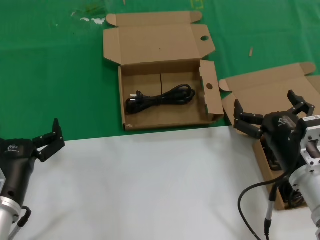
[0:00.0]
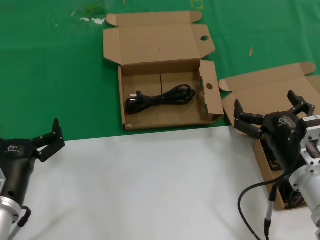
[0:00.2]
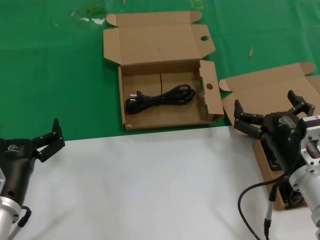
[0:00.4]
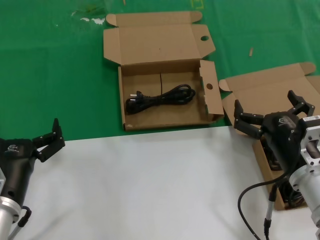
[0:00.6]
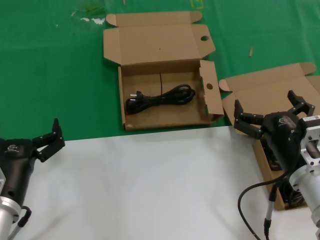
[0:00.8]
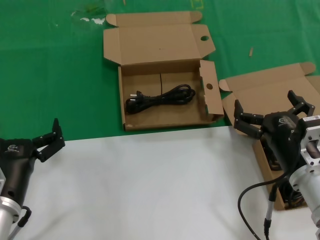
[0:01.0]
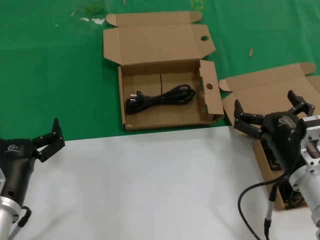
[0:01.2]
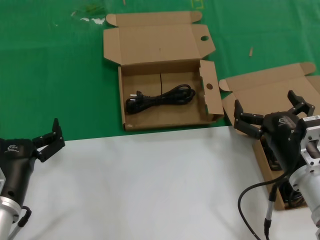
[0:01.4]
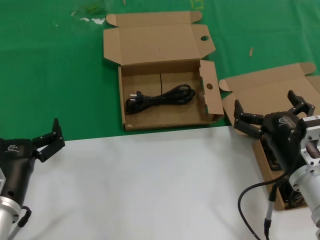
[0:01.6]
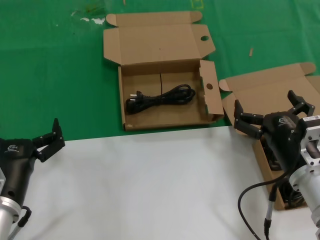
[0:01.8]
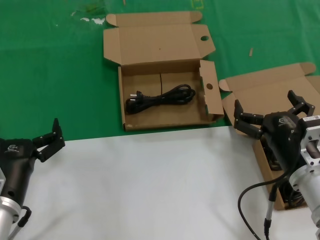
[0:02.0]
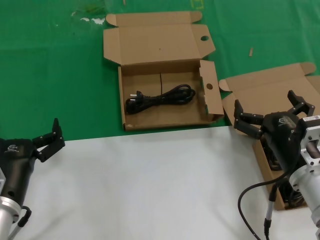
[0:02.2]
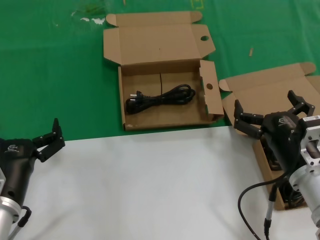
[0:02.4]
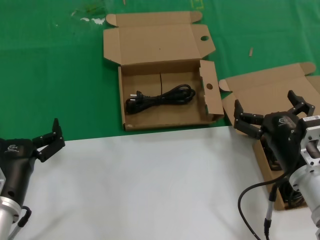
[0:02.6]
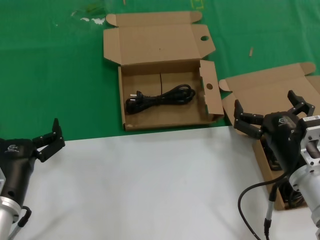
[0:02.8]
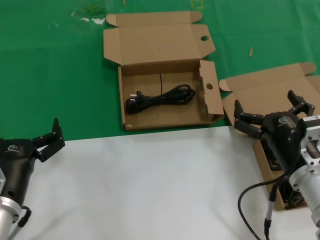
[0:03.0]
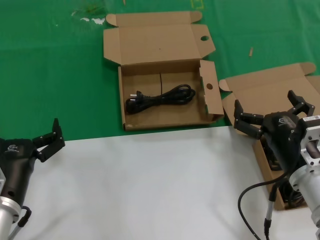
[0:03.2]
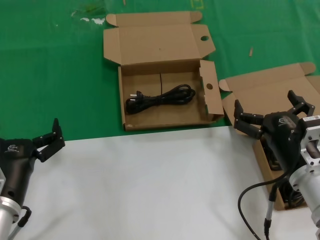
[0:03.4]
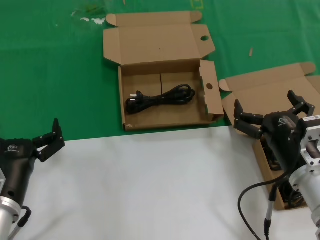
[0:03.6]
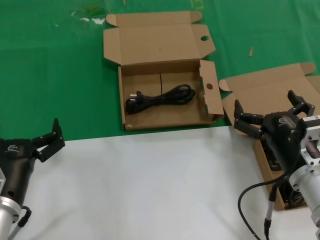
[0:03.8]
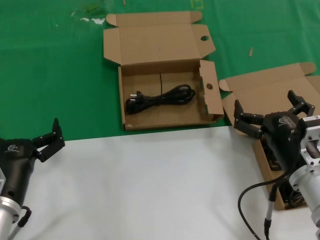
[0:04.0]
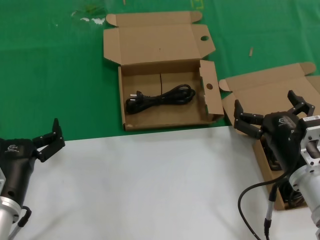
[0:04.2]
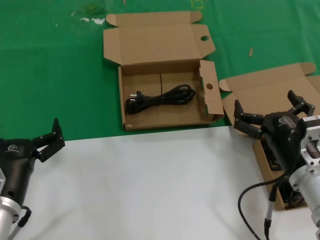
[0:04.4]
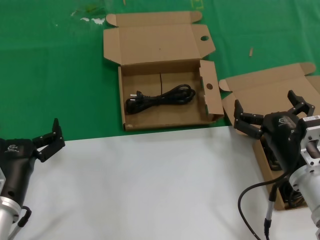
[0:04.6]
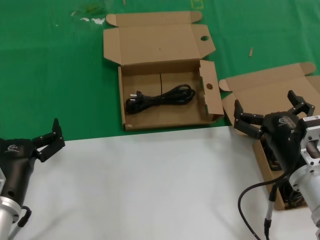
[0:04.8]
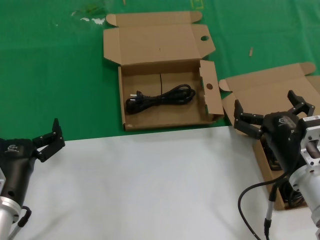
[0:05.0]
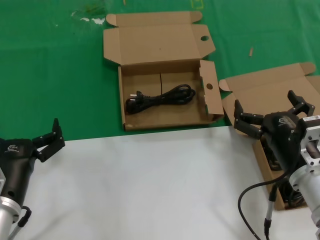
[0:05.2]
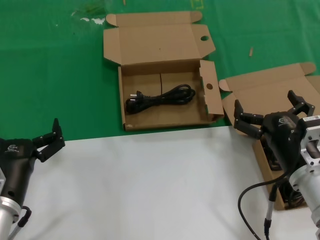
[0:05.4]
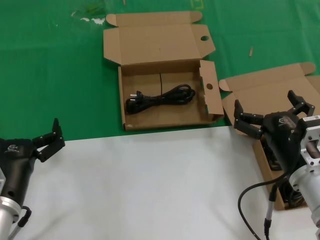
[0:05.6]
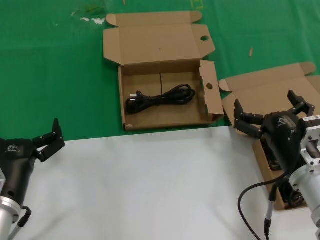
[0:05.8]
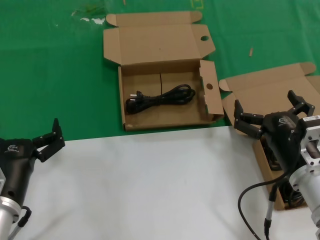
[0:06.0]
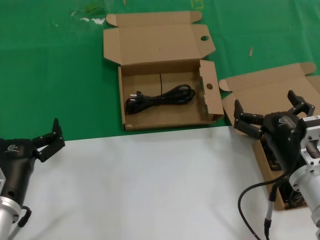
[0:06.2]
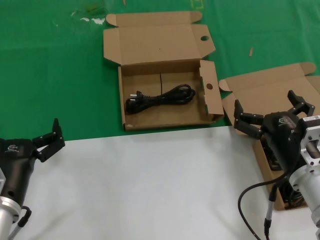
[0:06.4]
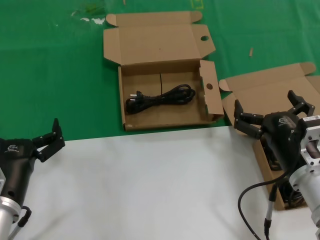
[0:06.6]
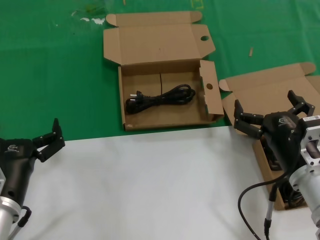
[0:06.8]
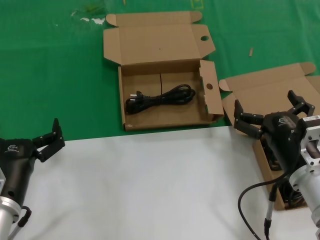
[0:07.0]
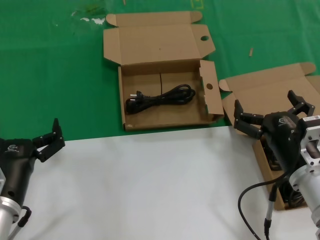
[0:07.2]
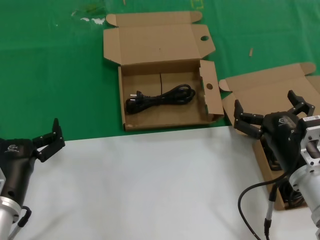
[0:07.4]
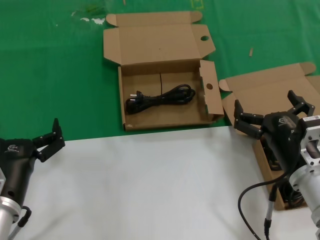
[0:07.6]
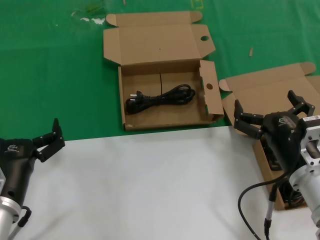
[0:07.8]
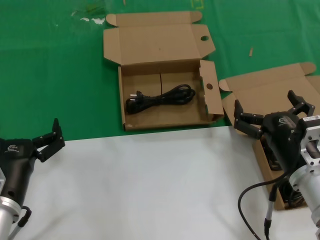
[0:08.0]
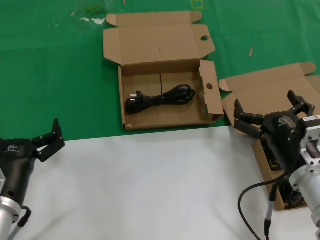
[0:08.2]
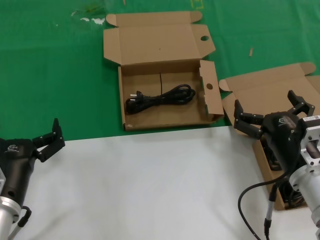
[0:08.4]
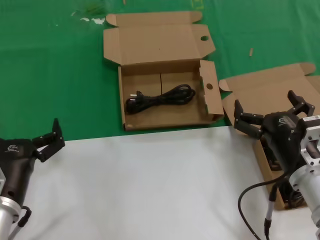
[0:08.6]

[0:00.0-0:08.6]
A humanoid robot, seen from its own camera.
Task of the whole recording: take the parts from the box containing them and put them into an empty box.
0:00.0 to 0:08.6: Both hands stay about where they are.

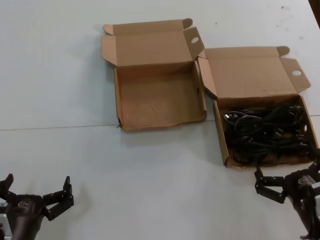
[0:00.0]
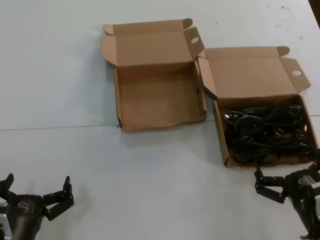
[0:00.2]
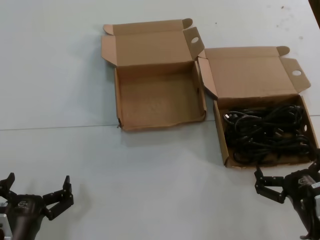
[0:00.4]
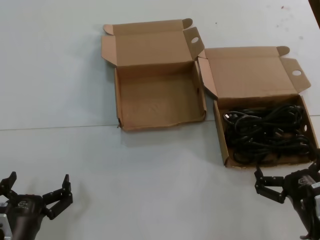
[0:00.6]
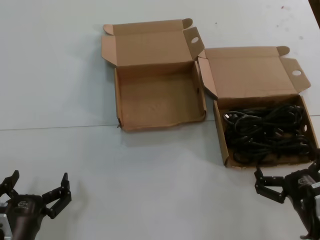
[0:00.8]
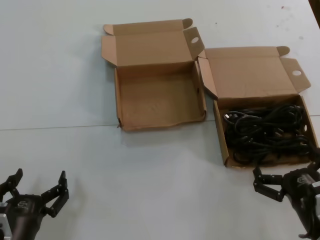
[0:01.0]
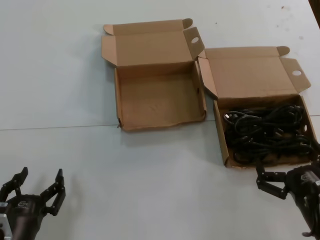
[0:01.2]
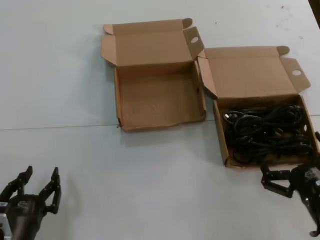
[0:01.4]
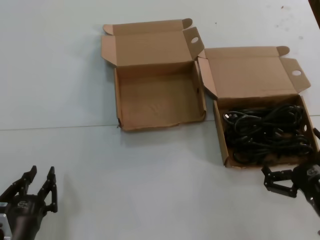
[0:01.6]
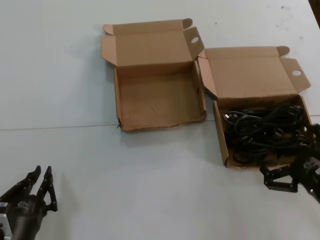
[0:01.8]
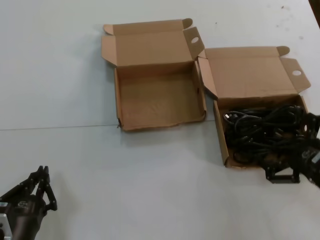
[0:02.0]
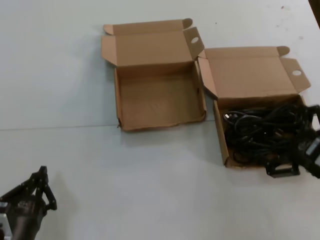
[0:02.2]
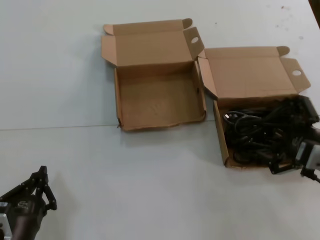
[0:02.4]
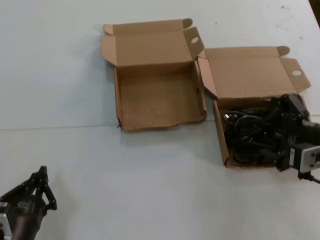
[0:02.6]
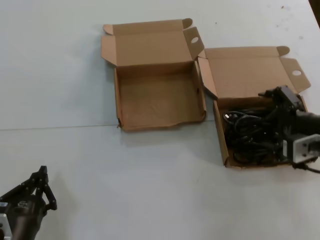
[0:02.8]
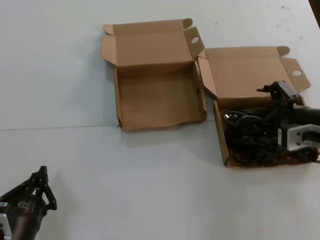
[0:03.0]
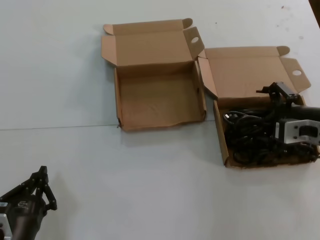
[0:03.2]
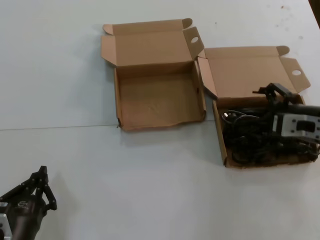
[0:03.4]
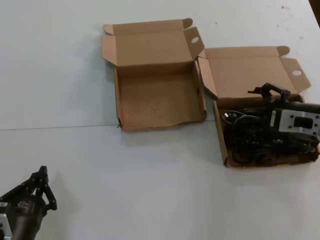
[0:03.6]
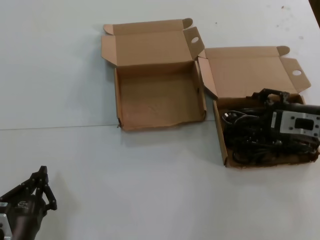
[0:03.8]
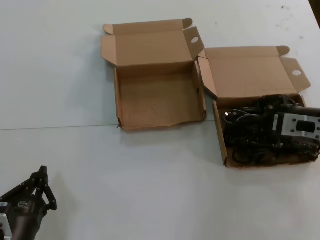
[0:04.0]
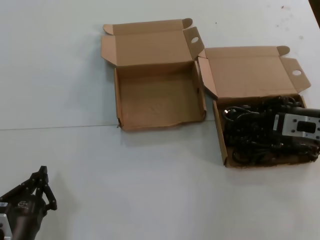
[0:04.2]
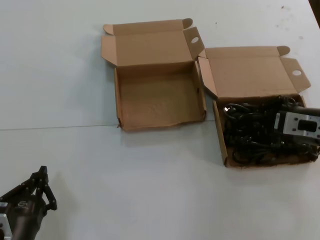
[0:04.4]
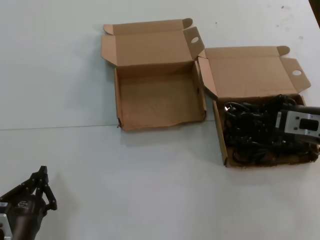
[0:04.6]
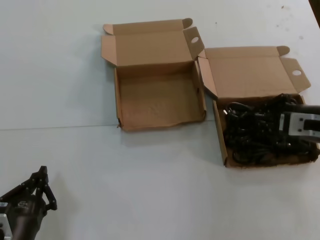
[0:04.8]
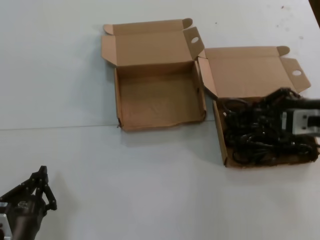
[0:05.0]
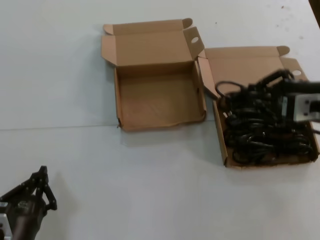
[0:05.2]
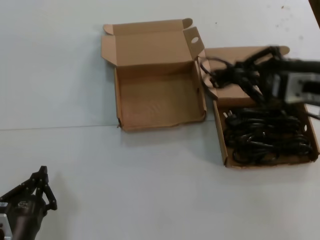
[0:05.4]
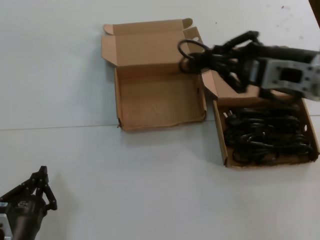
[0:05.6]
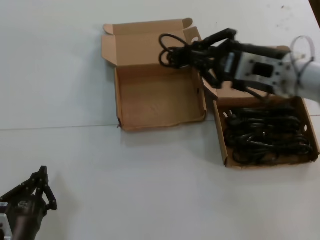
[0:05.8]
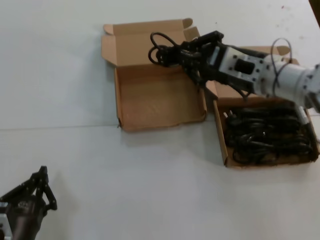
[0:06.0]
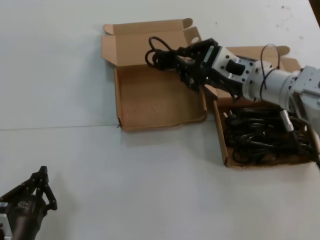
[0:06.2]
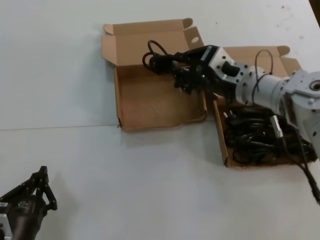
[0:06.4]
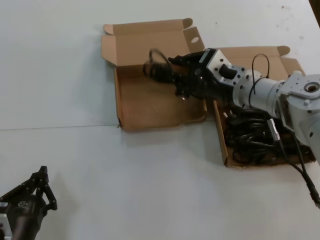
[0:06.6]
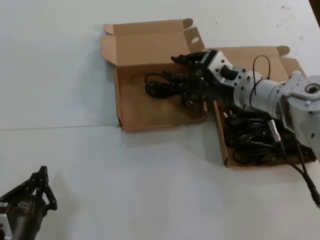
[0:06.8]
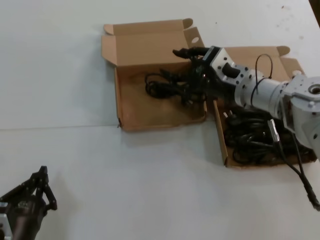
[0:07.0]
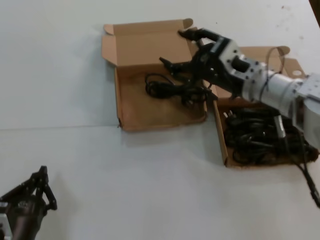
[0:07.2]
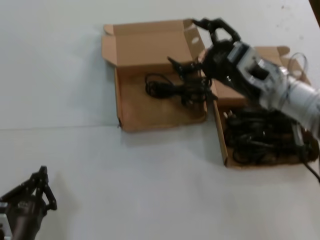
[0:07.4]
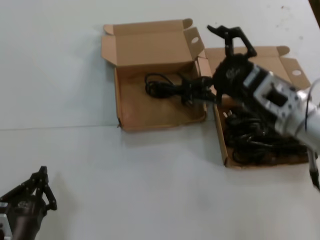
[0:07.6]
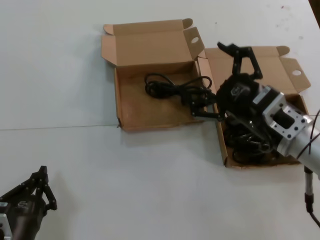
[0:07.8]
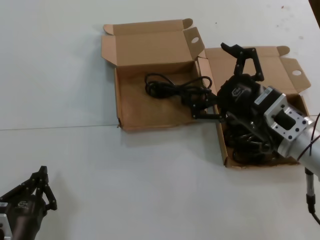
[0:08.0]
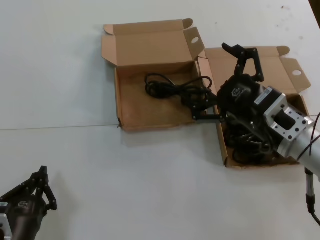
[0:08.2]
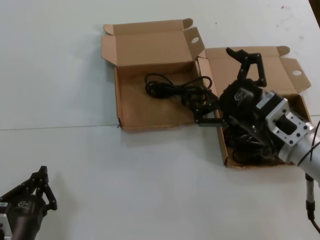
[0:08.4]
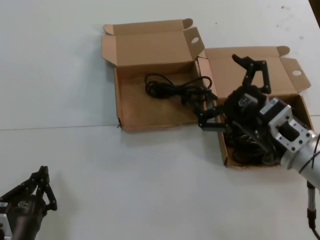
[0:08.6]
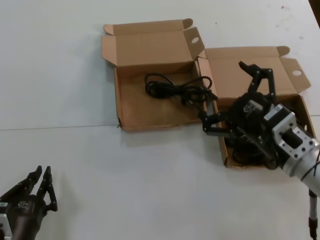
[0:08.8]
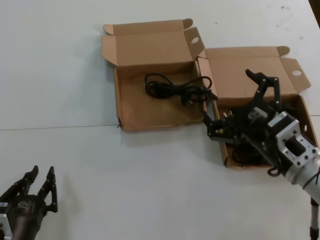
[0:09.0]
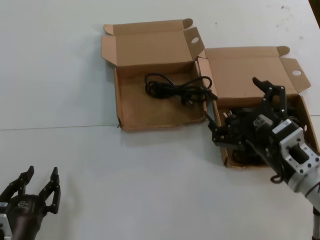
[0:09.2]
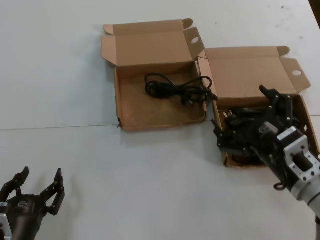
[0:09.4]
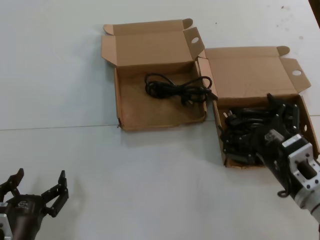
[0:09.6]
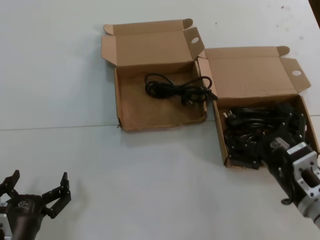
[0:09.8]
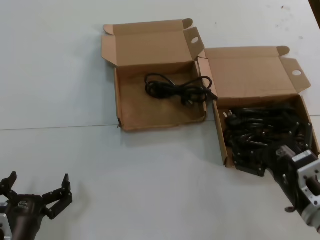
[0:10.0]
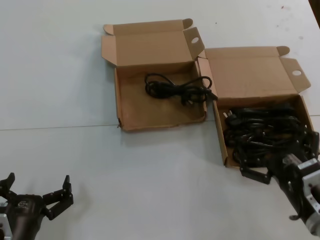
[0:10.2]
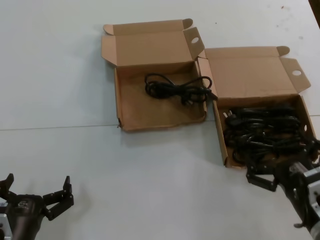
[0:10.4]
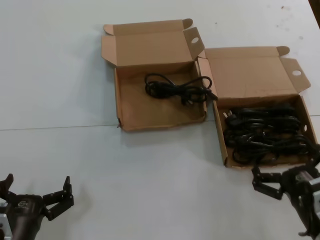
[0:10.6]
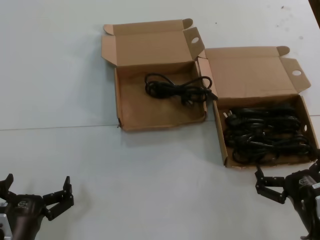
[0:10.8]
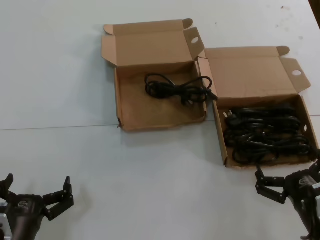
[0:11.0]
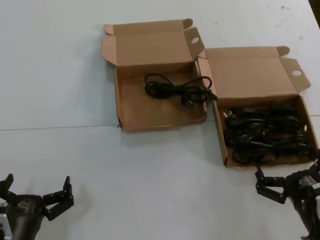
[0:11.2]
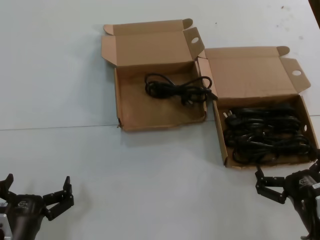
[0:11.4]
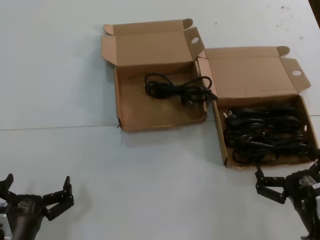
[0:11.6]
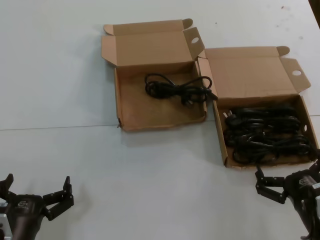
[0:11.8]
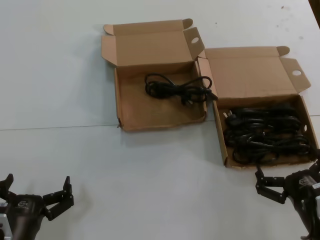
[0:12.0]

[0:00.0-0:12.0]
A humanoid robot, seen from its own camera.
Task of the whole recording: take the parts from the box containing them and put them into an empty box.
Step, 0:00.0 to 0:04.2: Grasp the data cable.
Step, 0:04.6 to 0:06.6: Place the data cable in the another box.
0:00.0 to 0:01.6: There are only small adjustments of the hands.
0:01.6 to 0:03.0: The right hand is displaced forward and upward by approximately 20 cm.
0:03.0 to 0:04.4: The hands move only a little.
0:04.4 to 0:06.0: The right hand is displaced to the left and upward by roughly 15 cm.
0:06.0 to 0:07.6: The right hand shifts about 10 cm backward and downward.
0:07.6 to 0:09.0: The right hand moves downward and backward, about 10 cm.
0:09.0 to 0:10.4: The right hand shifts some 10 cm downward and backward.
0:10.4 to 0:12.0: The hands move only a little.

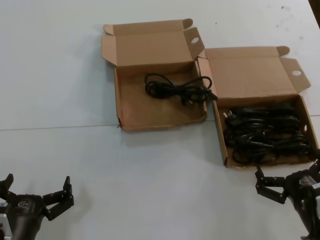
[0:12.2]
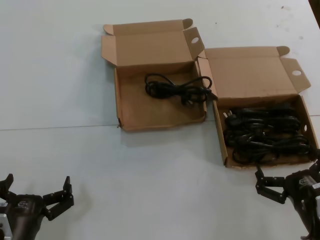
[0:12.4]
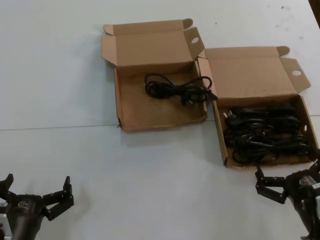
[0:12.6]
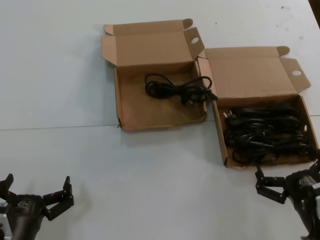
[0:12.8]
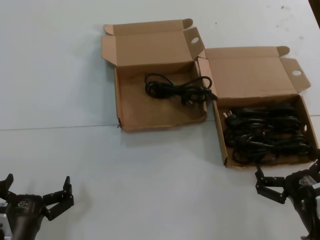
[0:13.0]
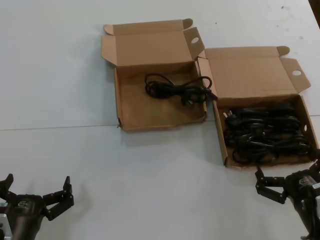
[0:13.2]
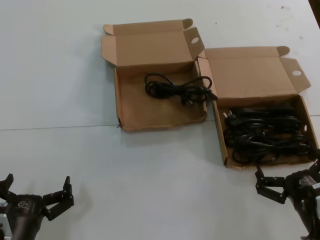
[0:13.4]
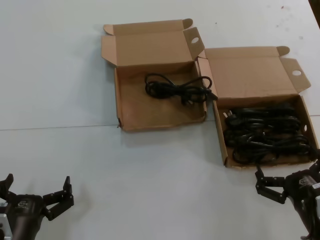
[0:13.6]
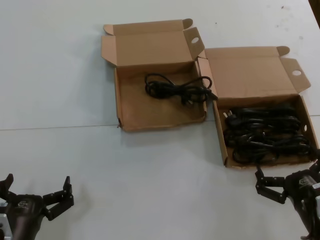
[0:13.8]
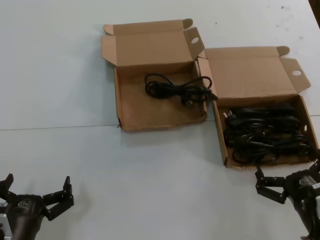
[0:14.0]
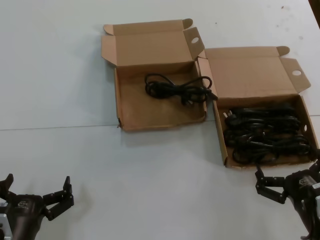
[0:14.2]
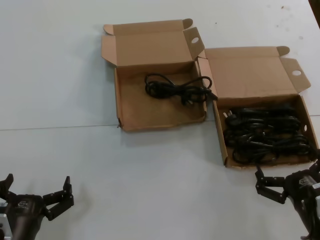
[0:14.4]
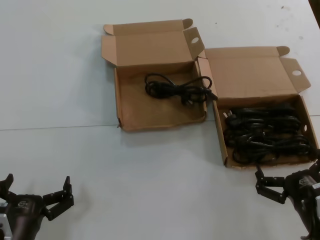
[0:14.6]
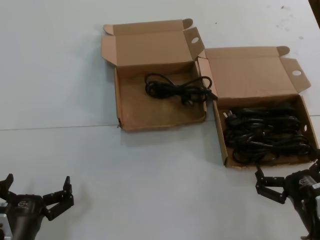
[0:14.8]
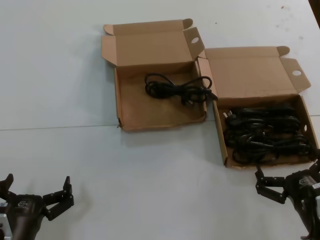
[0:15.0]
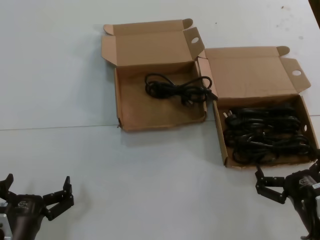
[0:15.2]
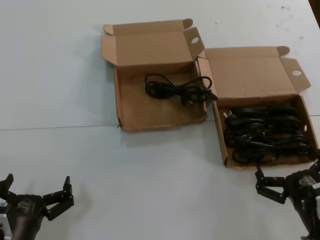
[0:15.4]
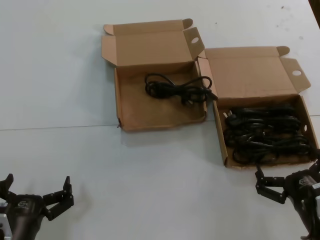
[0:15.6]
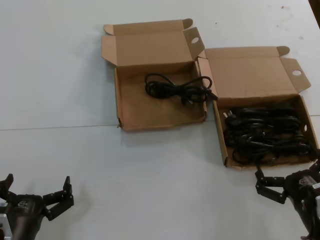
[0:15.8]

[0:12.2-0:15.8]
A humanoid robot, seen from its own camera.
Task of the whole recording: take the parts from the box containing them and put them into an empty box.
0:12.2 to 0:15.8: Both hands stay put.
